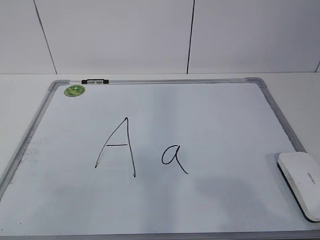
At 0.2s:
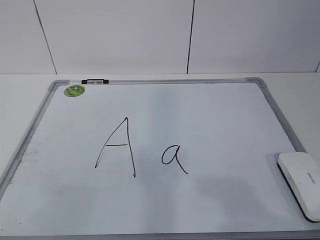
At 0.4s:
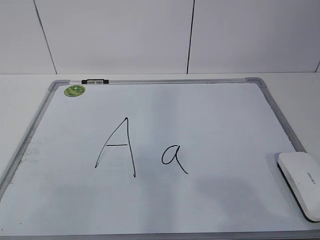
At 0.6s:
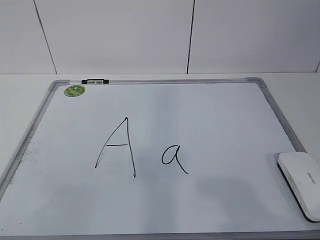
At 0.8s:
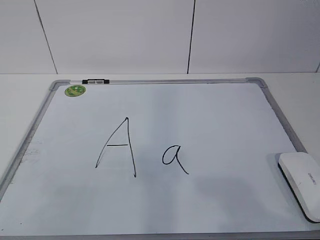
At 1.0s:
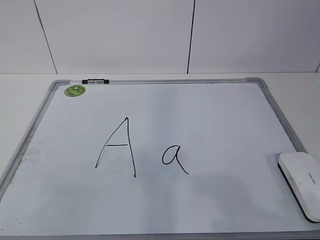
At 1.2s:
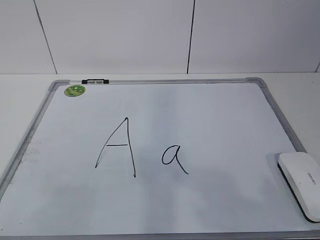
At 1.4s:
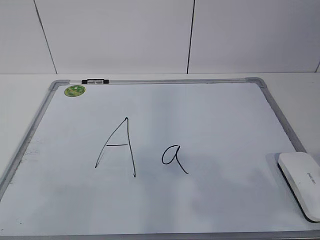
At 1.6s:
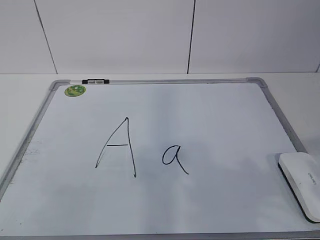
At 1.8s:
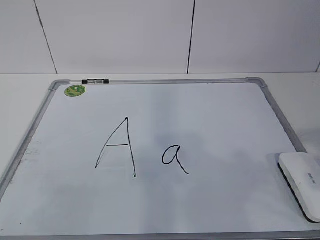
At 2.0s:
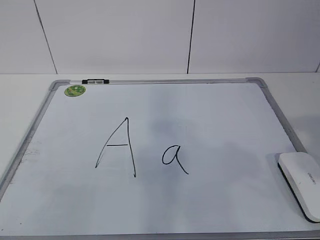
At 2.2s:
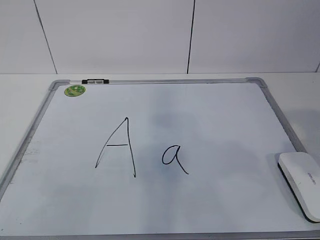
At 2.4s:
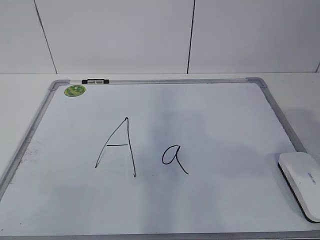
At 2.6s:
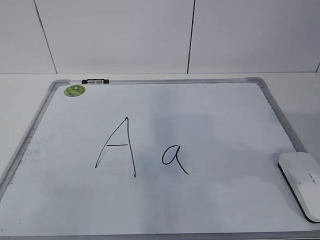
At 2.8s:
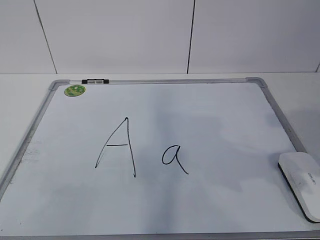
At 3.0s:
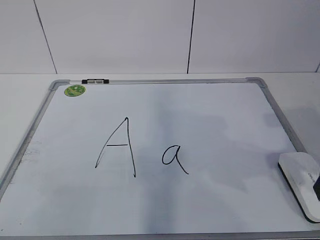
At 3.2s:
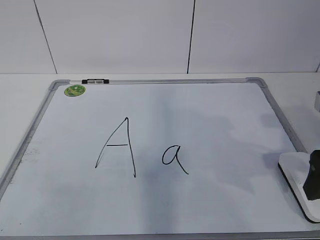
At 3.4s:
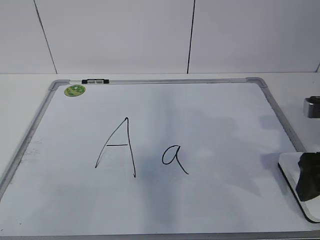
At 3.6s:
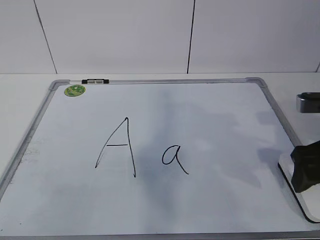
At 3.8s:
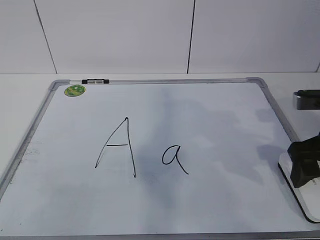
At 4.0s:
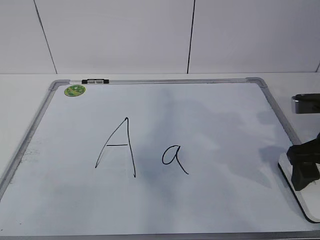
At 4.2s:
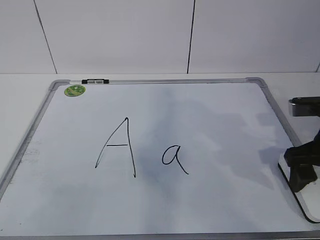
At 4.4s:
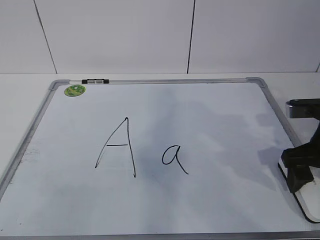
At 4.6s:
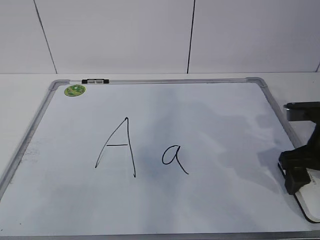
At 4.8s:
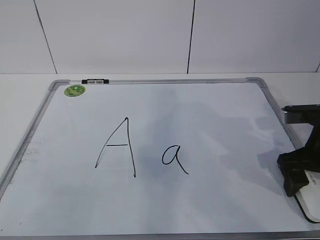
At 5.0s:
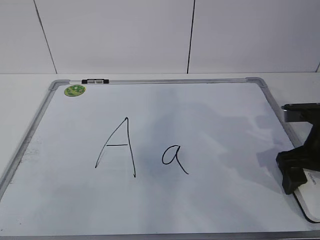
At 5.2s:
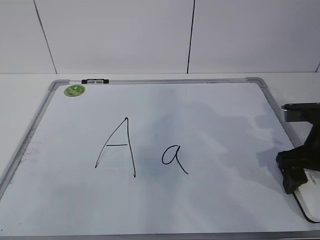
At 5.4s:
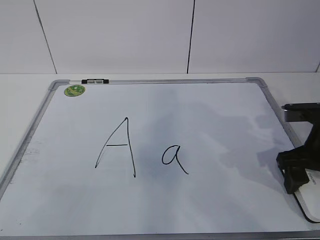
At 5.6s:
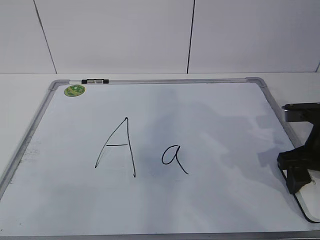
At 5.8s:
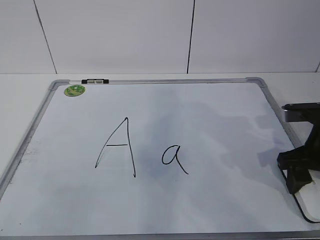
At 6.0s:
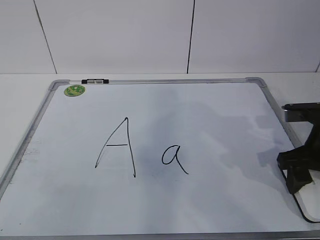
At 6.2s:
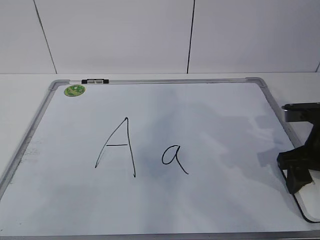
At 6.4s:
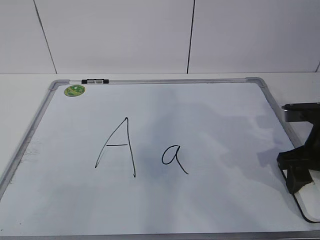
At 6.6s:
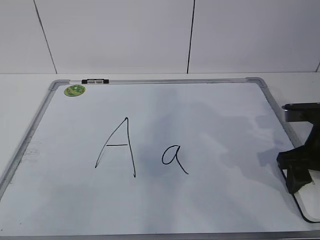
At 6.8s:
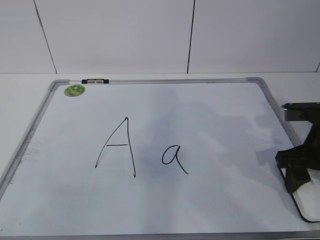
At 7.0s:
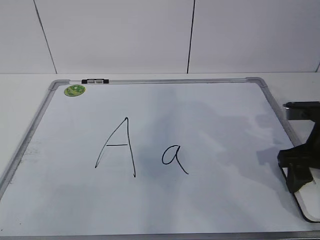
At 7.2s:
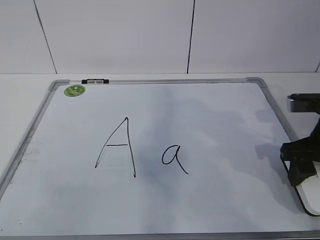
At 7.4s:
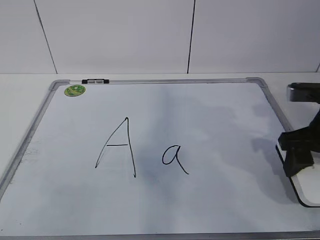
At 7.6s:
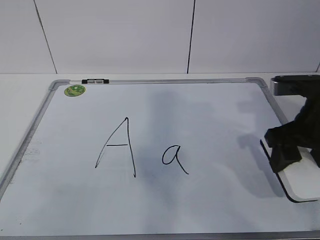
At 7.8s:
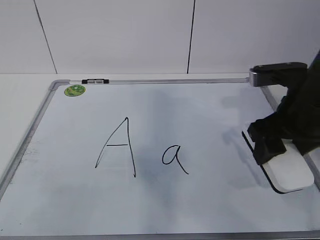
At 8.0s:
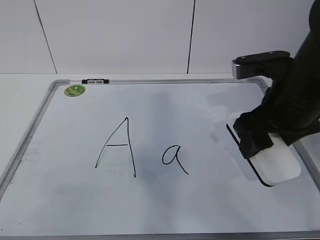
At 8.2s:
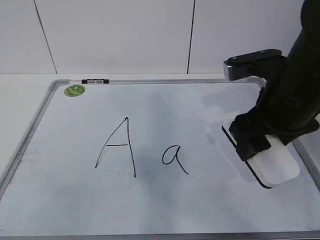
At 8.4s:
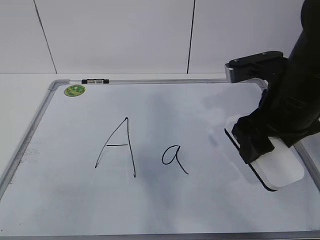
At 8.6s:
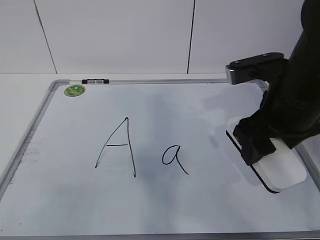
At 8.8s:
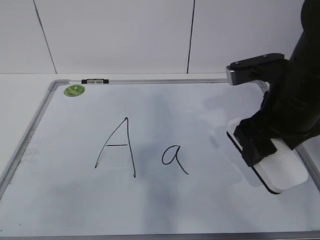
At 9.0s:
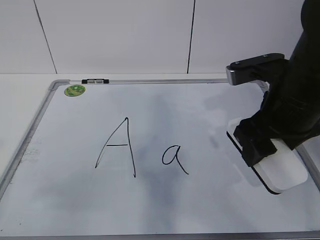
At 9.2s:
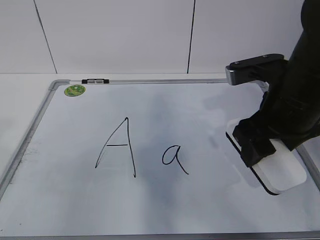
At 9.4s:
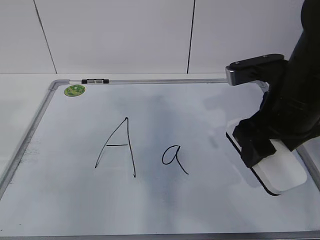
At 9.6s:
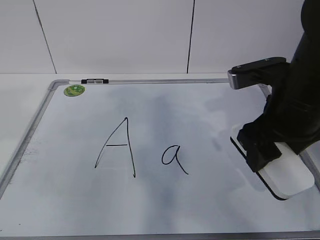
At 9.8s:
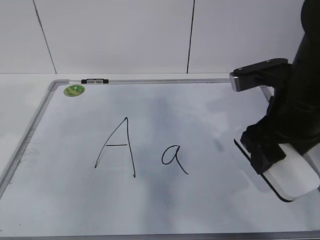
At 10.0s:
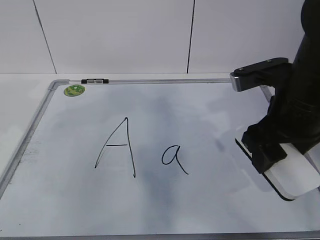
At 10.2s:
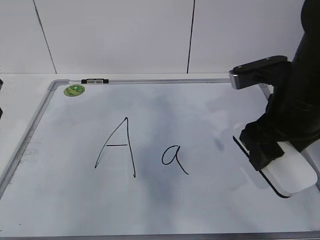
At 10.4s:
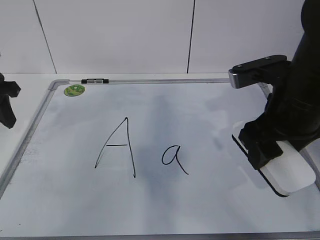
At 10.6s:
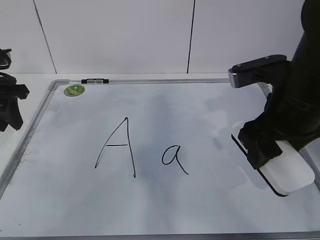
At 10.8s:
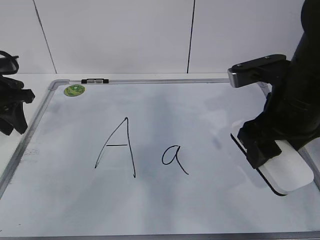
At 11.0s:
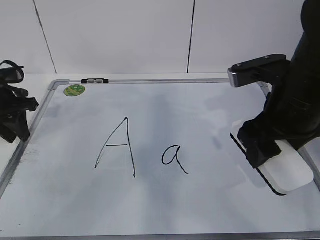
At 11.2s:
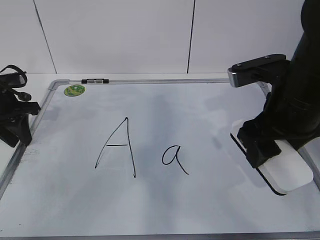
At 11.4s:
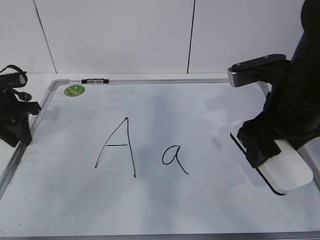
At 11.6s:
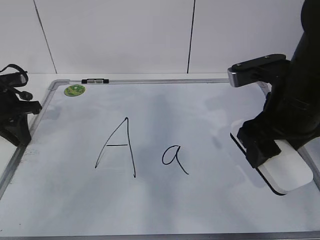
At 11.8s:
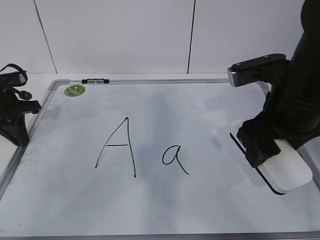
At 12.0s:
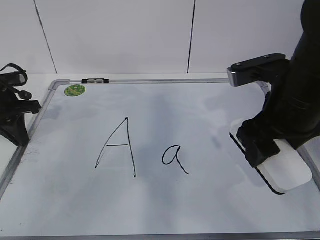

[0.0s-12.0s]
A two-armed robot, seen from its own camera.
Task of the whole recording: pick up the eraser on the blackboard and erase the letter "a".
Step, 0.0s to 4.6s: Grab the eraser with your right hand.
Step, 4.8s to 9.6s: Hold the drawing board steady with your left hand.
1.6s to 3.0s: The right gripper shifts roughly 15 cm forward, and opens.
3.0s to 4.4s: The right gripper travels forward and downward by approximately 10 cm.
4.4s to 6.0s: The right gripper closes.
6.0s to 7.6s: The right gripper heads upward, covering roughly 5 cm.
7.6s to 9.0s: The right gripper shifts some 5 cm to the left.
9.0s to 10.4s: The left gripper goes roughly 30 cm forward.
10.4s to 12.0s: The left gripper shifts roughly 5 cm downward, and closes its fingers.

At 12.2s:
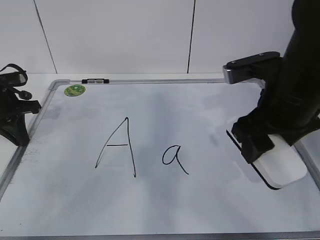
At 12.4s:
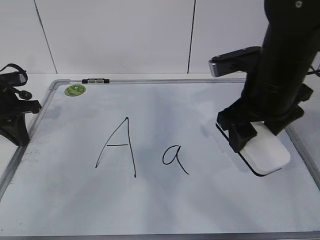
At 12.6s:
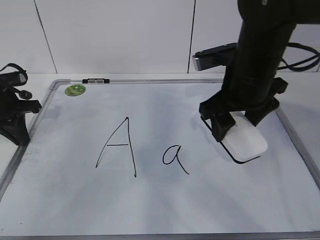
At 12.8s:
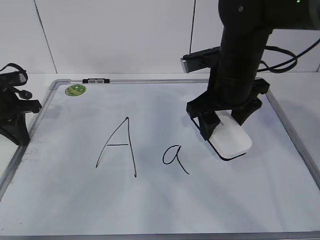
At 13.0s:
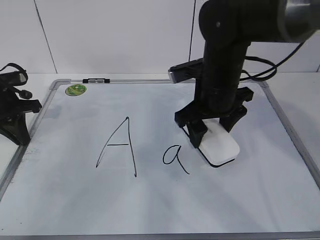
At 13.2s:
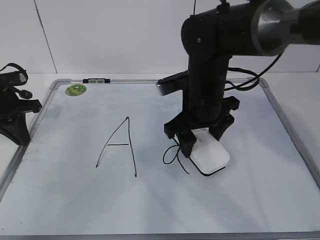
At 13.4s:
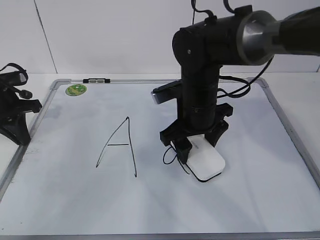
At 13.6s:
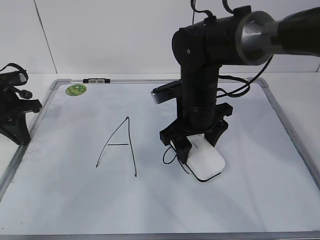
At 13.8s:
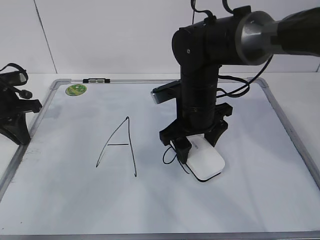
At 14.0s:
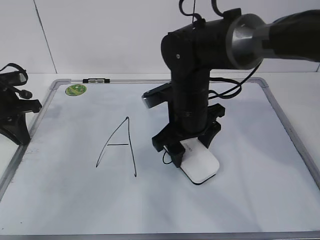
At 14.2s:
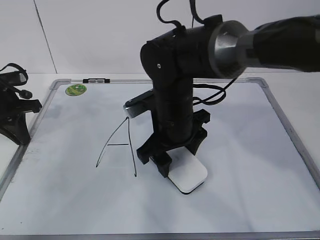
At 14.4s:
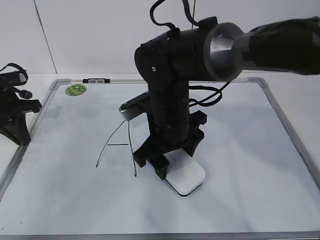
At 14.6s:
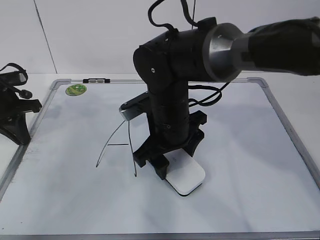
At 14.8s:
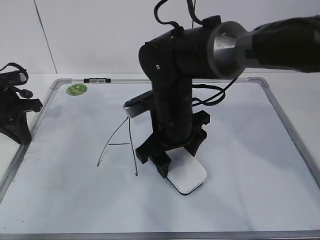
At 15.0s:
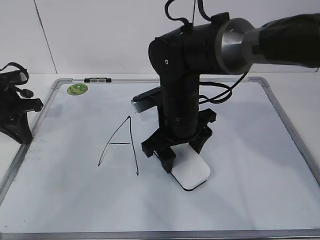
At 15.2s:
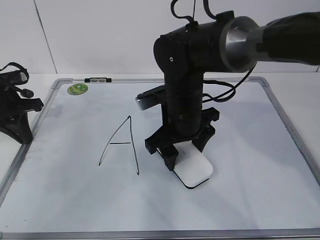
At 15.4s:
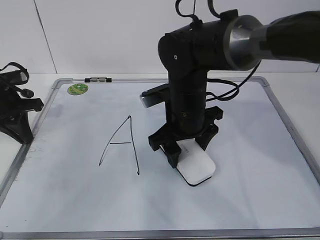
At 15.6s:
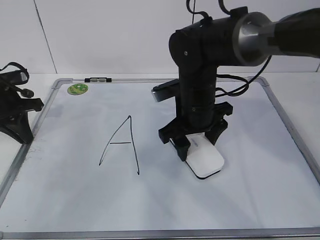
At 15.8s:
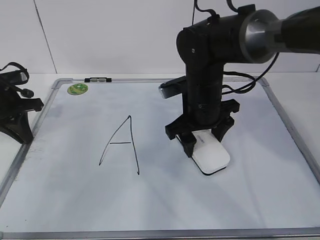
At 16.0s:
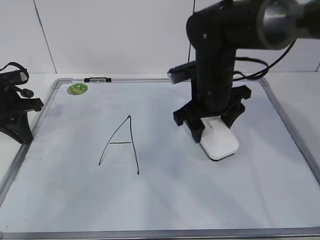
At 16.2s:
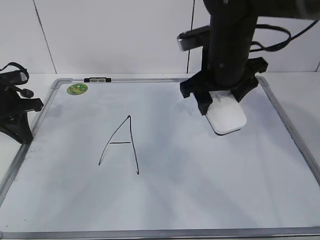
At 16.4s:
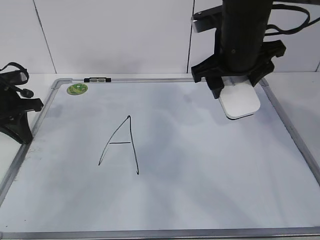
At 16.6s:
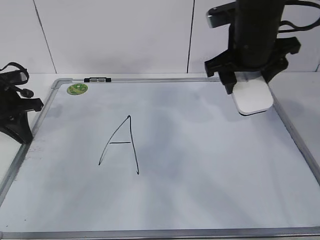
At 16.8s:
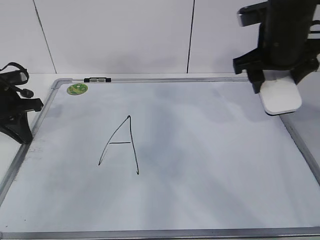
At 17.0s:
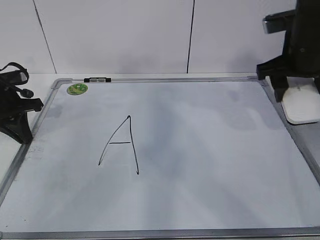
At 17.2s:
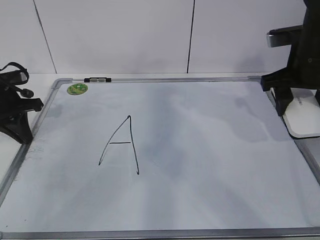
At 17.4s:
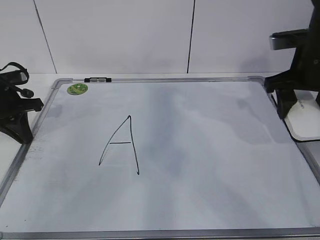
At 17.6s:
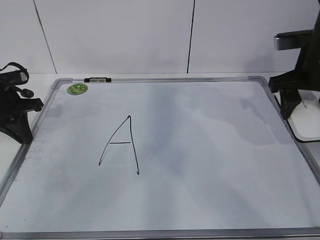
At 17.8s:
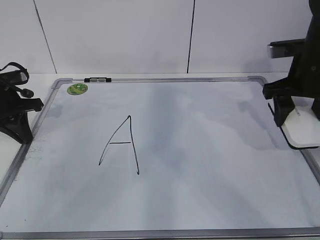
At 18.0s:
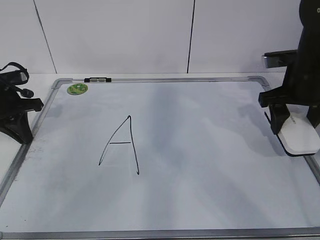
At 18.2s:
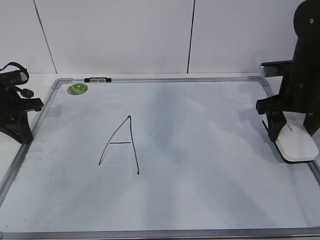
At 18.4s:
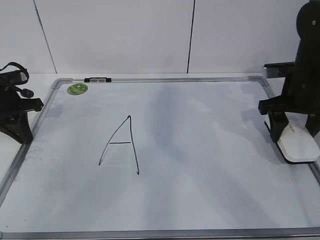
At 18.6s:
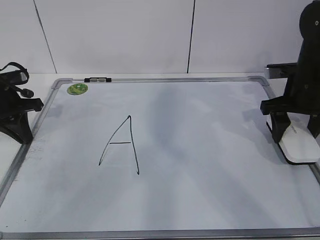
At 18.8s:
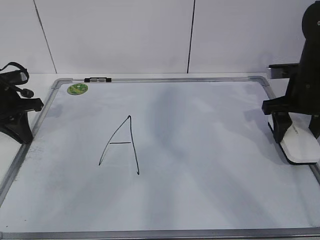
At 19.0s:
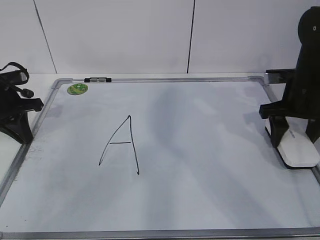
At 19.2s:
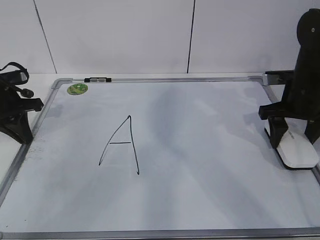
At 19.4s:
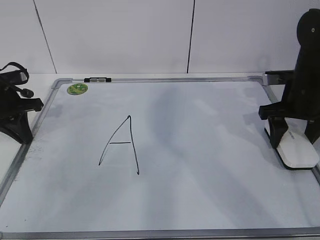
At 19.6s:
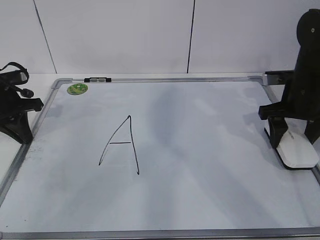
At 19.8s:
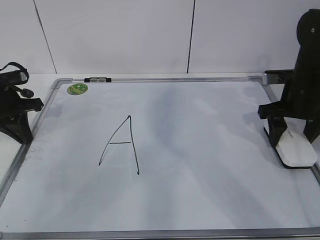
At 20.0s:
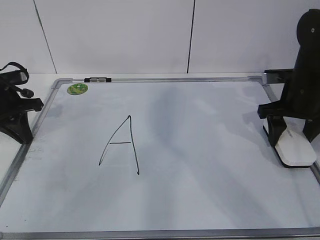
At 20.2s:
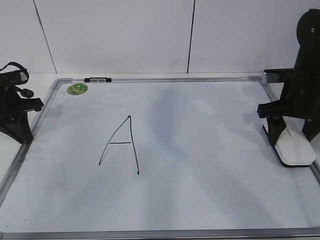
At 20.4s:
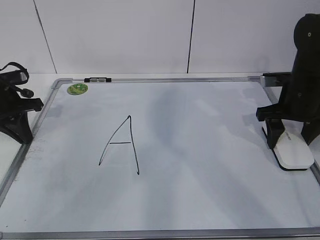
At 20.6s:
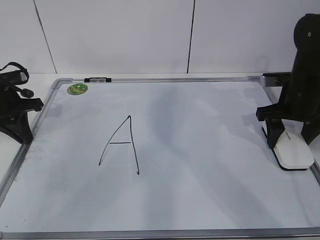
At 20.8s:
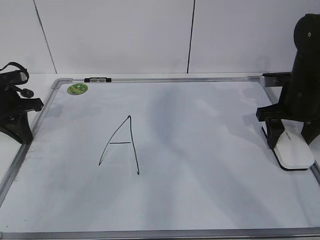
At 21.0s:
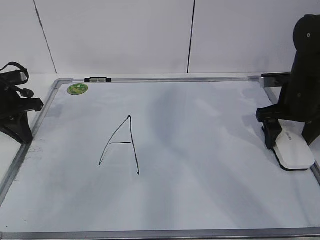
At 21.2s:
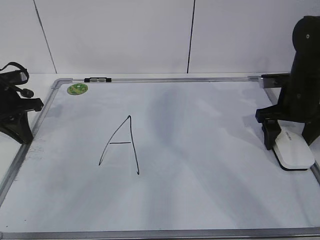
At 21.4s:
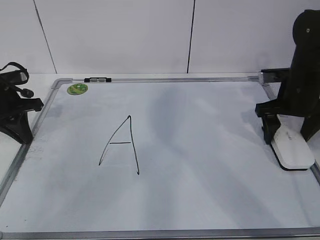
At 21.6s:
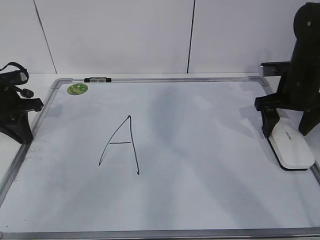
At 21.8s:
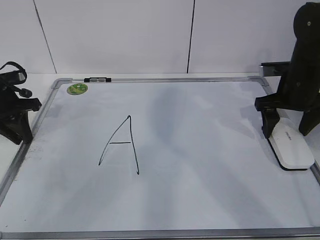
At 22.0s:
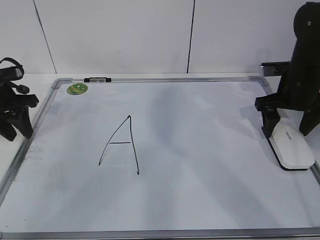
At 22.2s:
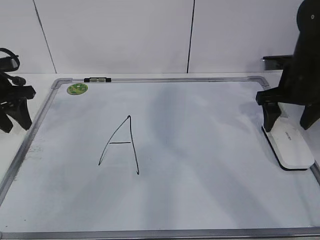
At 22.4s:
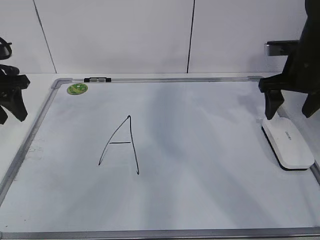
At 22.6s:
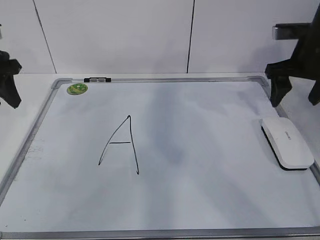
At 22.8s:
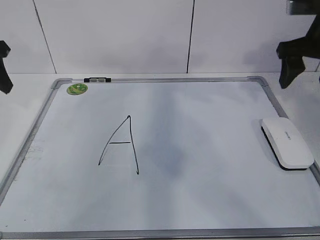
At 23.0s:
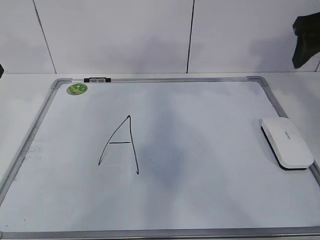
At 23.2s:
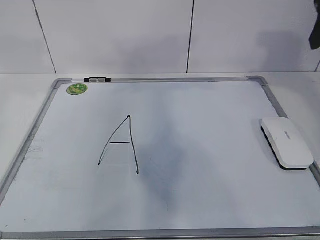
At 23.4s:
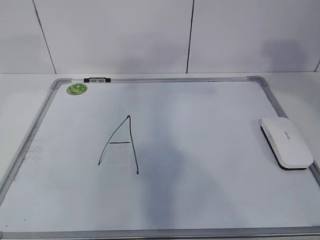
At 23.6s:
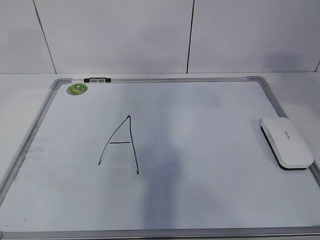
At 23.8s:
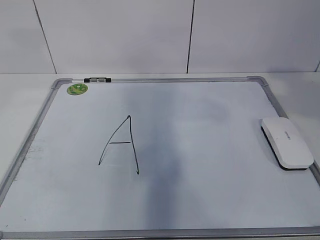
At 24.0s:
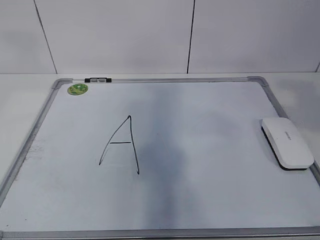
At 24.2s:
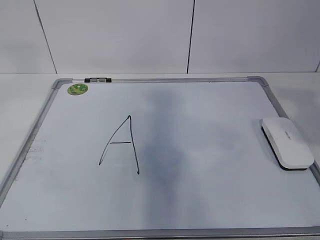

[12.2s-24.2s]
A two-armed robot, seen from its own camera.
Task of the whole recording: pick up the eraser on the blackboard and erase the letter "a".
Step, 13.2s to 17.2s: Put down the eraser with your right hand.
12.2s to 13.8s: The right gripper travels to the left, forward and downward by about 15 cm.
13.8s to 15.2s: The grippers make only small movements.
15.2s to 16.6s: The right gripper goes approximately 15 cm upward and to the right.
16.6s to 18.2s: The right gripper is displaced to the right and downward by about 15 cm.
18.2s to 19.8s: The grippers move only a little.
19.8s to 21.2s: The right gripper opens.
21.2s to 22.6s: The two grippers go roughly 10 cm upward. The left gripper opens its fingers.
22.6s to 24.2s: The grippers both shift backward and upward by roughly 30 cm. The right gripper closes.
